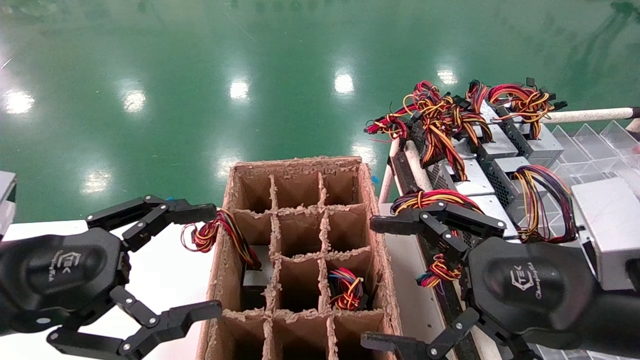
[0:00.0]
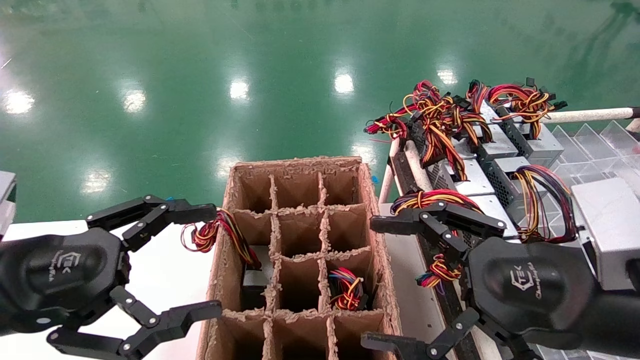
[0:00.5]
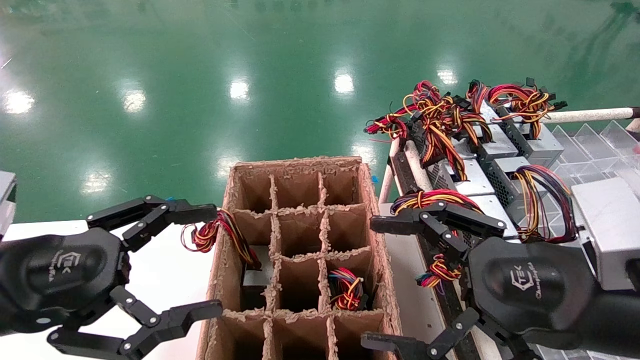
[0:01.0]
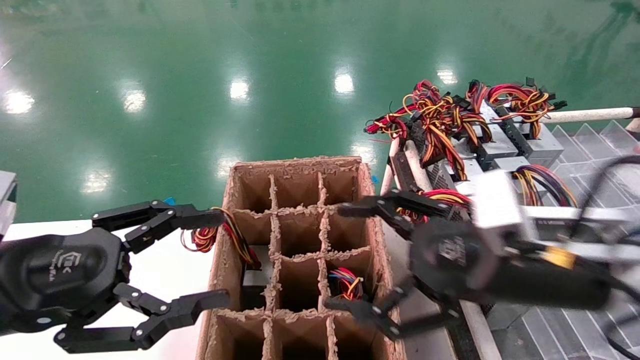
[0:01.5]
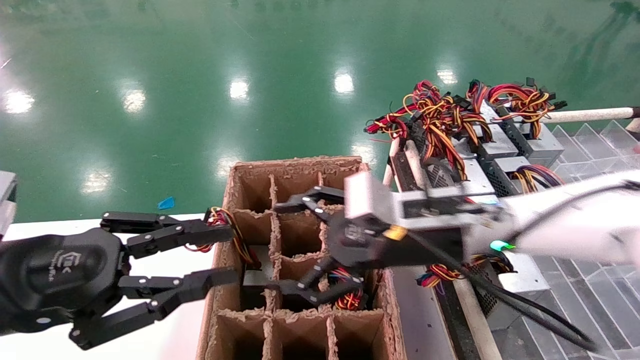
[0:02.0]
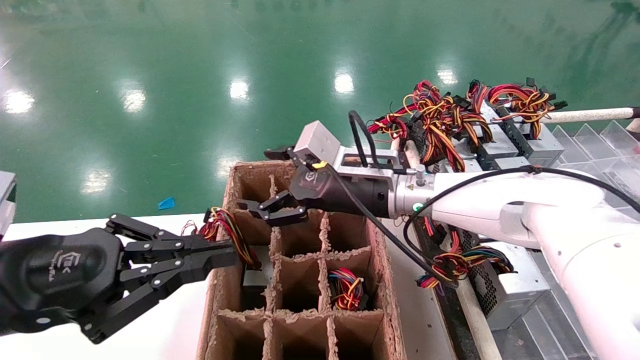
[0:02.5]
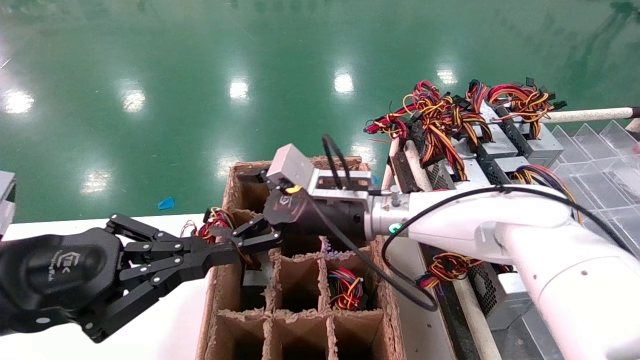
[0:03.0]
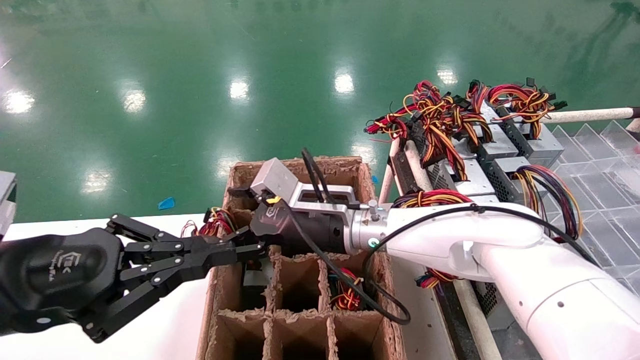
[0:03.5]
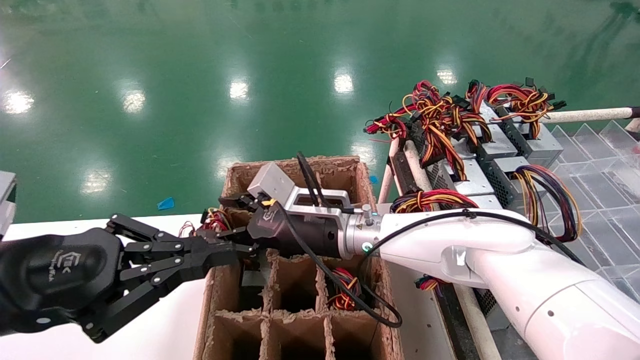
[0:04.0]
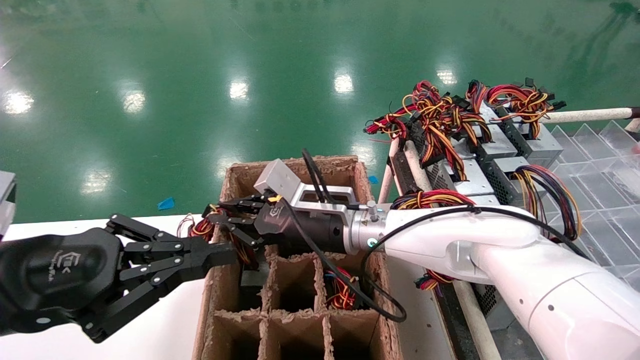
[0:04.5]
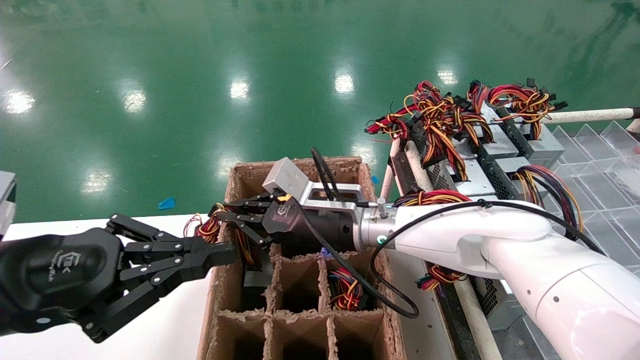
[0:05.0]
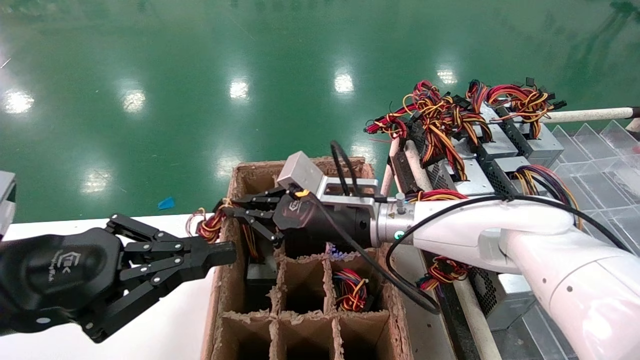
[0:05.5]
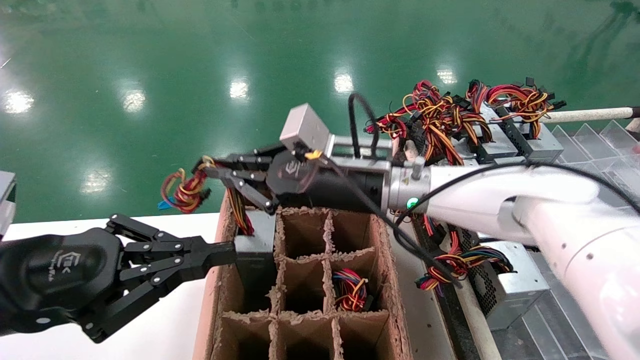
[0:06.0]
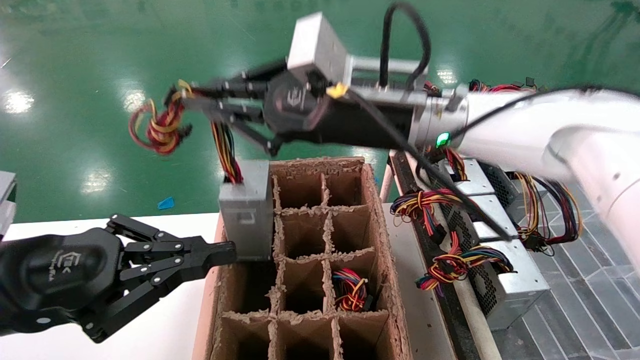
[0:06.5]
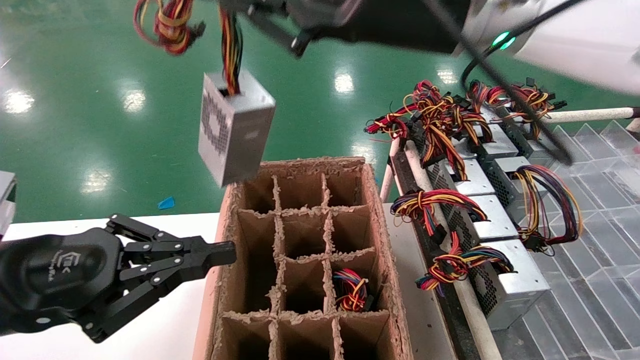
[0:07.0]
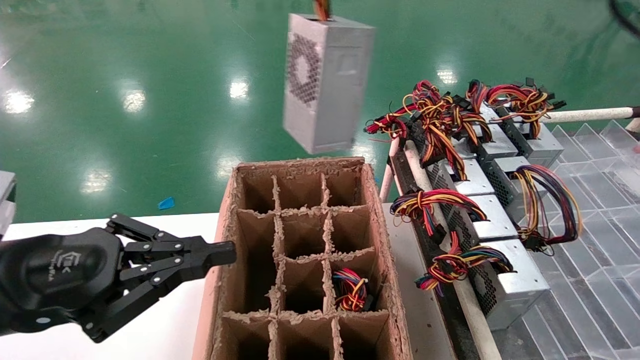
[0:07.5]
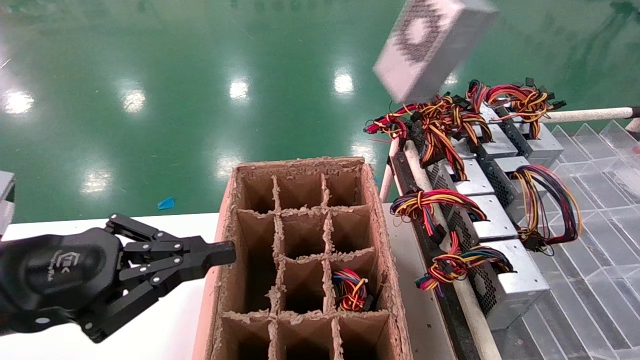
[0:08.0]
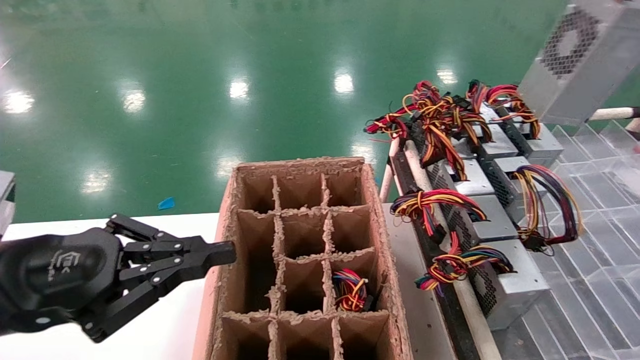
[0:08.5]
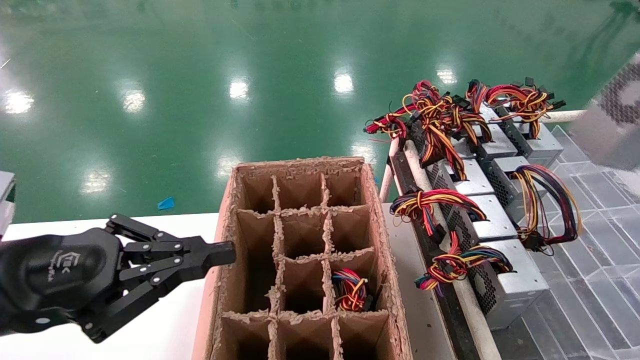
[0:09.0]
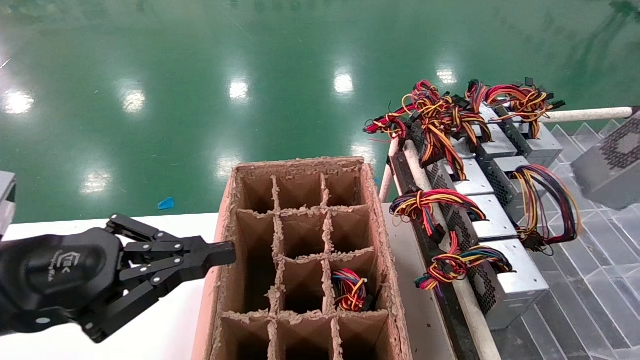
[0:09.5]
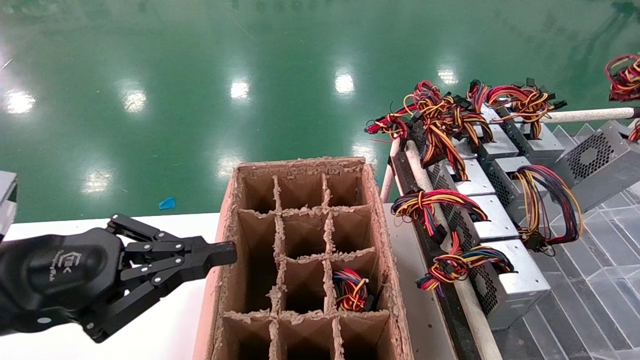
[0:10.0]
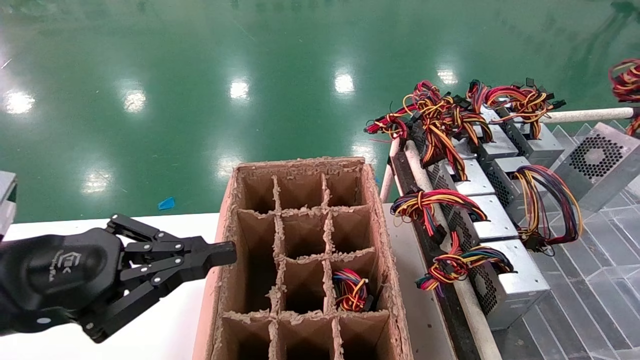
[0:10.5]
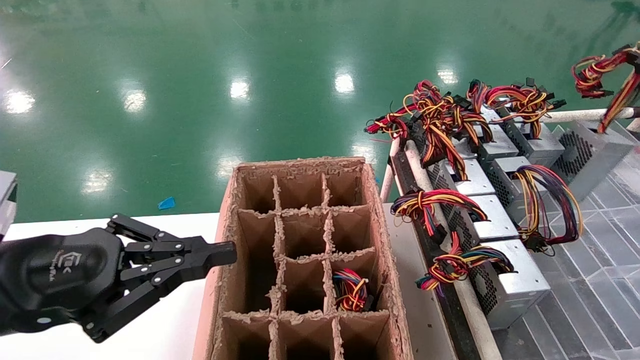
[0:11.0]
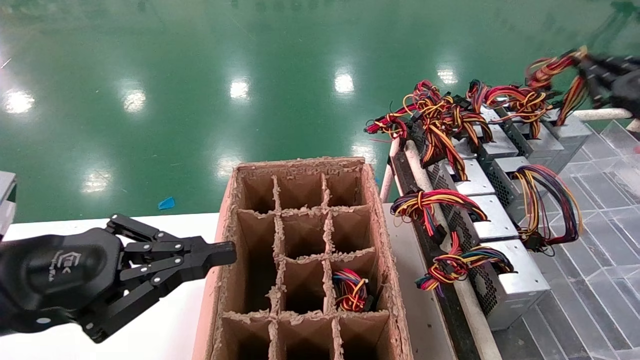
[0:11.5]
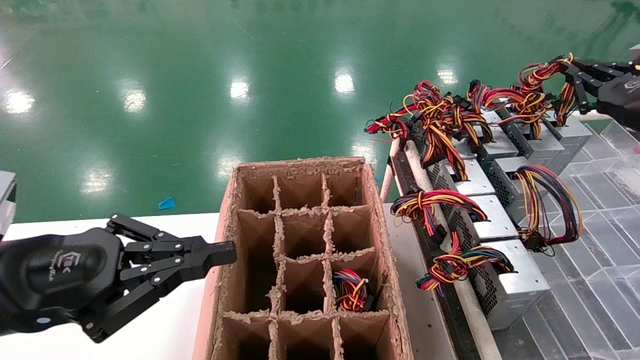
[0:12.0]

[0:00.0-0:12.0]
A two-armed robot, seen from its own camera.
Step, 0:02.0 to 0:04.5: Grab the main unit power supply from the containment box.
0:00.0 to 0:02.0: The left gripper closes up. The right gripper is displaced forward and to the left by about 20 cm.
0:02.0 to 0:04.0: The right gripper moves to the left, forward and downward, approximately 15 cm; the left gripper closes.
0:04.0 to 0:06.0: The right gripper goes about 10 cm upward, and closes up.
0:06.0 to 0:08.0: The right gripper shifts about 40 cm to the right, upward and backward.
0:08.0 to 0:10.0: The right gripper shifts some 30 cm to the right and downward.
0:10.0 to 0:12.0: The right gripper shifts approximately 15 cm forward and to the left.

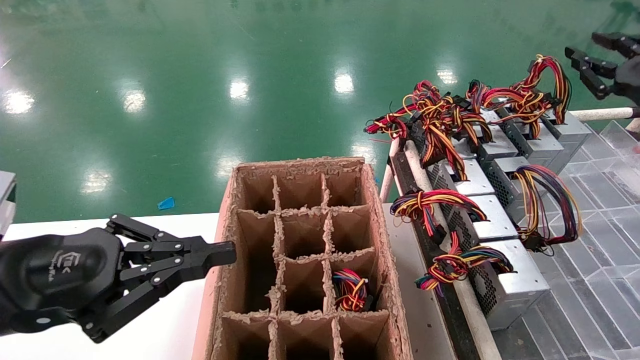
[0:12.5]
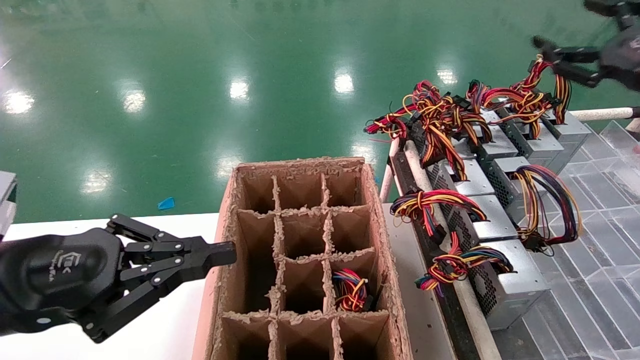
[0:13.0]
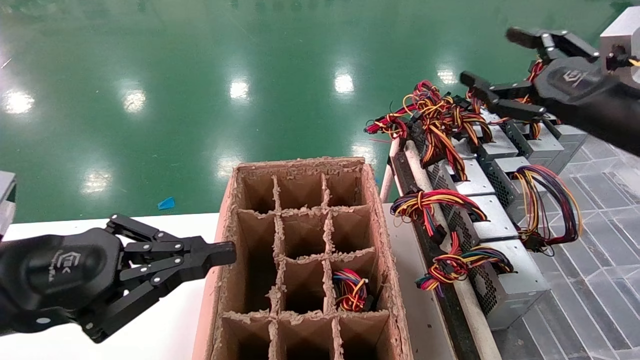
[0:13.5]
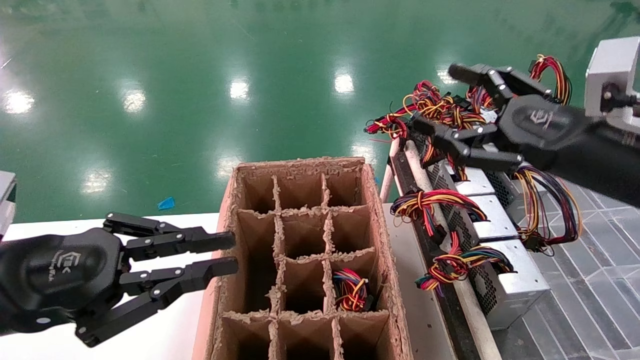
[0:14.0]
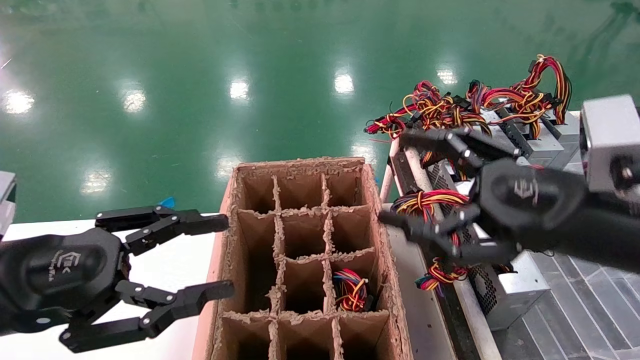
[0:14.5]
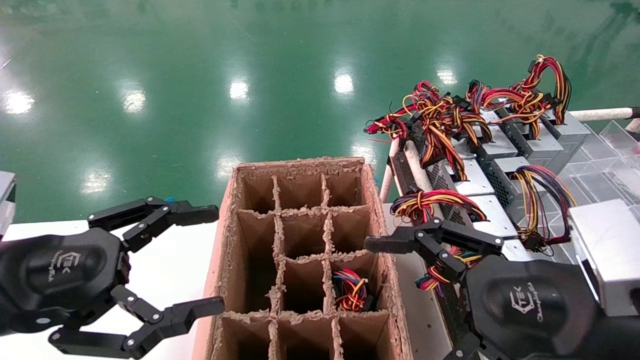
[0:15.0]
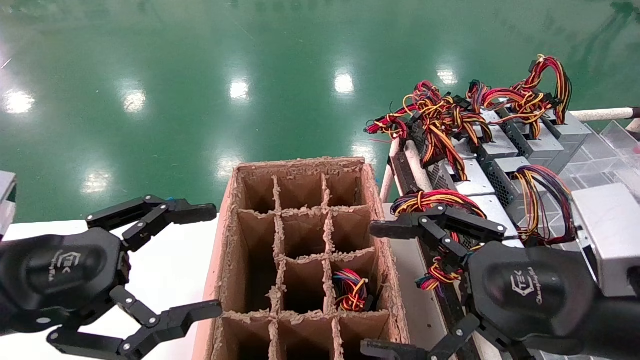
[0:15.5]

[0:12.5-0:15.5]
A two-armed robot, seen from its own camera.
0:12.5 to 0:14.0: The right gripper moves to the left and backward, approximately 20 cm, and opens up.
0:14.0 to 0:15.5: The left gripper opens; the right gripper is displaced backward, downward and to the left by some 15 cm.
